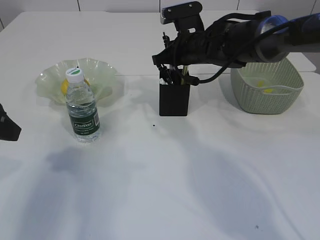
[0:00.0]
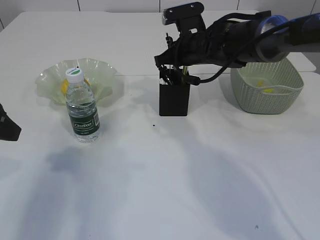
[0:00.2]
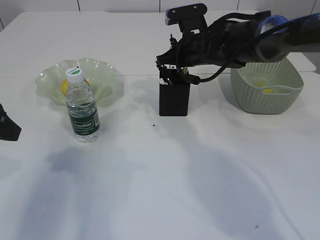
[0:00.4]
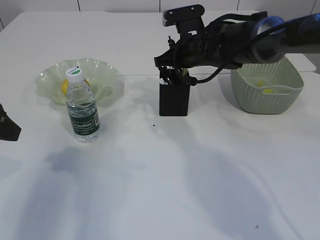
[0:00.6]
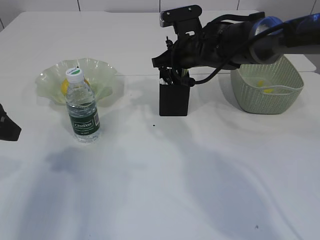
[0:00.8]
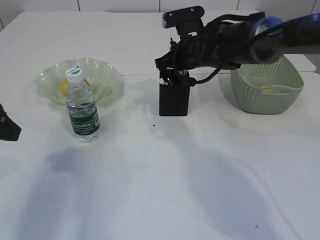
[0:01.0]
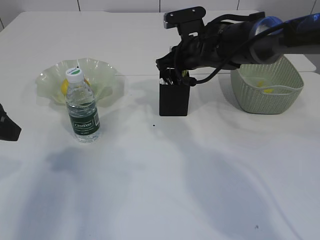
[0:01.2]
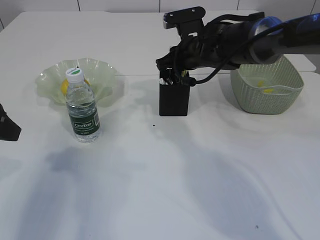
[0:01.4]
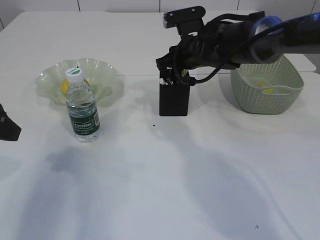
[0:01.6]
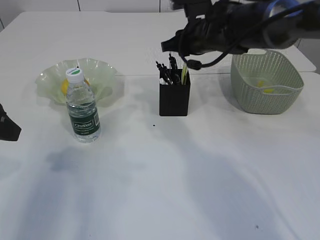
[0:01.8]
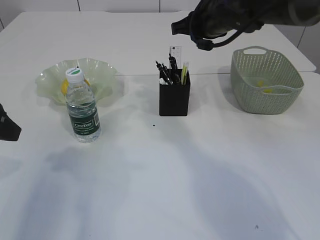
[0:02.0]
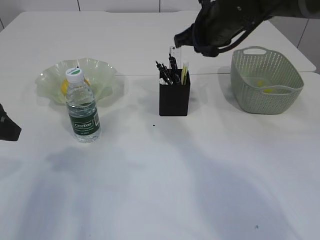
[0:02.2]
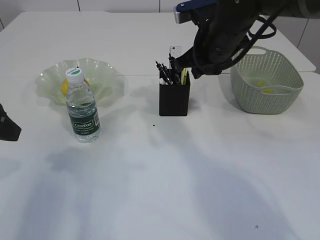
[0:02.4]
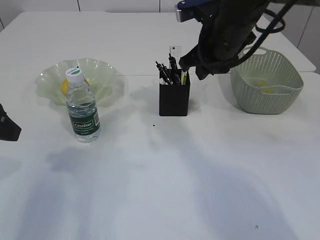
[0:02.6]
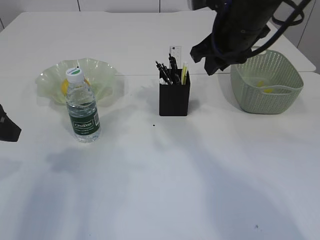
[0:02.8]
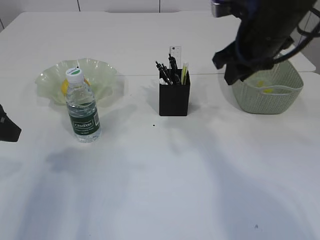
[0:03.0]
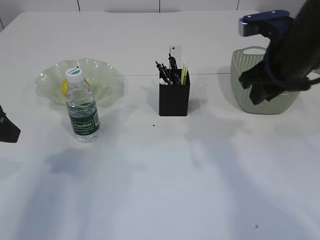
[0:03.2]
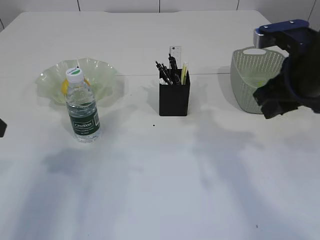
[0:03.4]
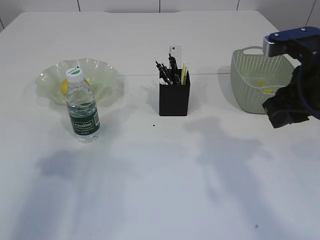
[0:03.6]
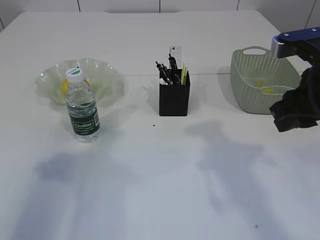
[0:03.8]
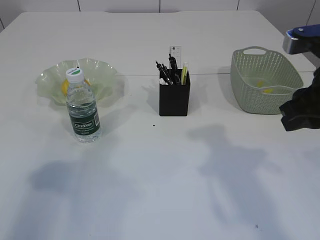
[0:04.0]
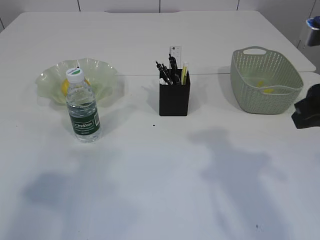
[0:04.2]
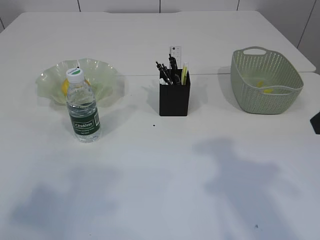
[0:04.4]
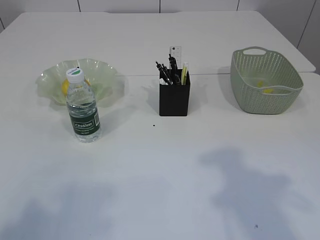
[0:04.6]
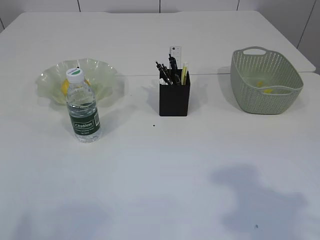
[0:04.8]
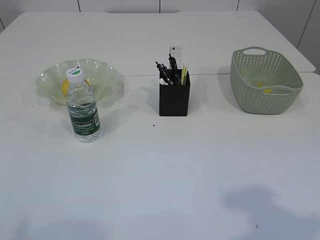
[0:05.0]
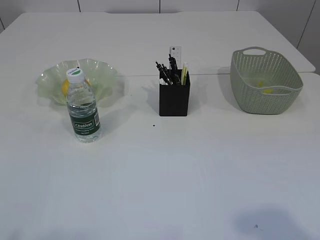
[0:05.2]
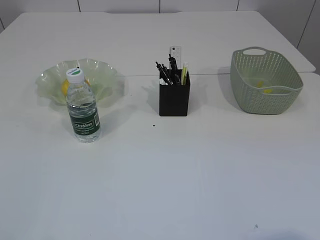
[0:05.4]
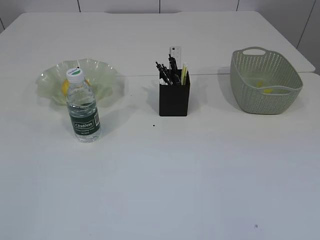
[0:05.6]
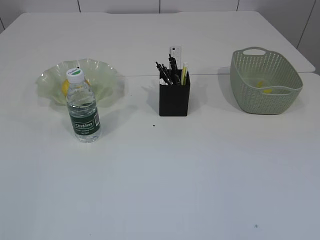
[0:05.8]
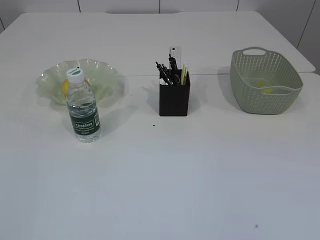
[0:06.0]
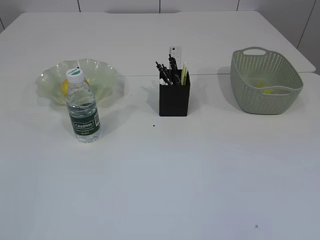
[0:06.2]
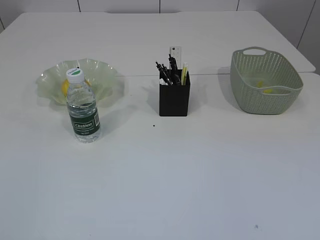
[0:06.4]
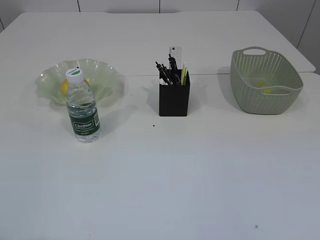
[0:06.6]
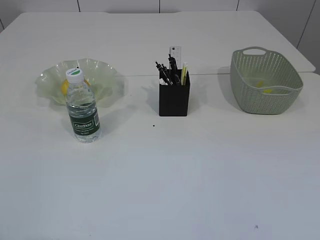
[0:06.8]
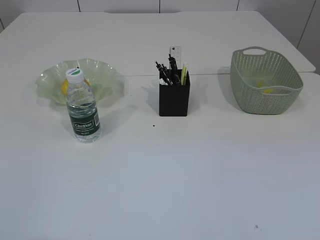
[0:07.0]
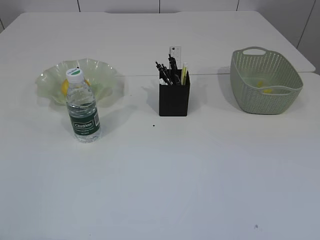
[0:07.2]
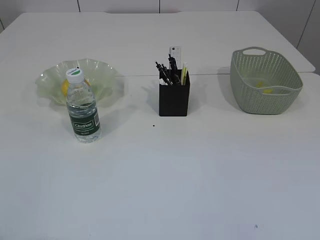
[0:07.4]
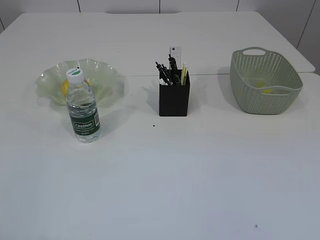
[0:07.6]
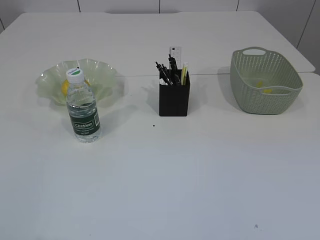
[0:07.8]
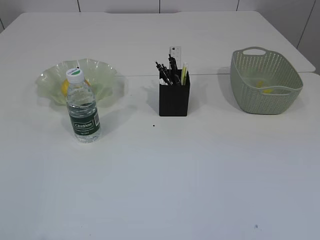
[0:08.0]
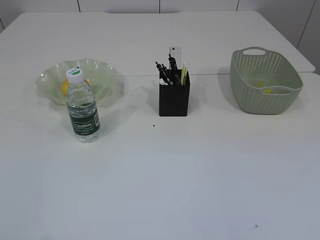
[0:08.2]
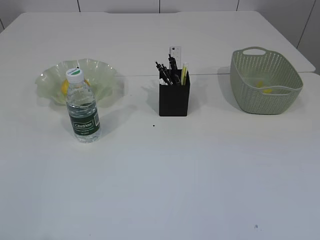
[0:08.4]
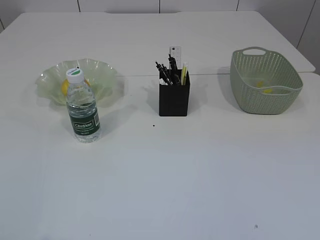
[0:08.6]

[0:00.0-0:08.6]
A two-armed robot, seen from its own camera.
0:00.0 to 0:01.4: There are only small adjustments of the grippers.
0:01.4 to 0:02.8: The right gripper moves upward and backward, some 15 cm.
0:02.8 to 0:04.4: The left gripper is displaced backward and upward by approximately 20 cm. The right gripper is displaced backward and to the right by approximately 20 cm.
0:04.4 to 0:05.8: The left gripper moves backward, some 10 cm.

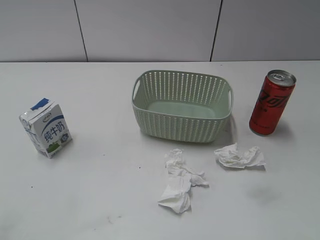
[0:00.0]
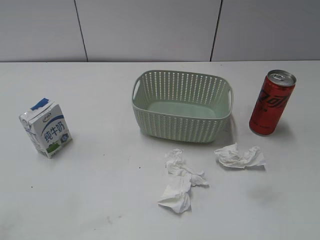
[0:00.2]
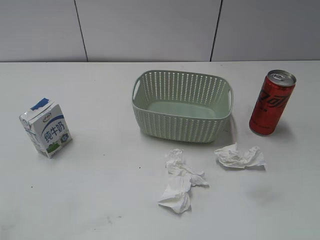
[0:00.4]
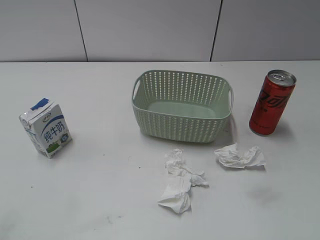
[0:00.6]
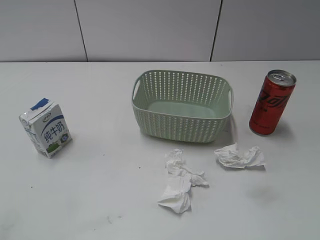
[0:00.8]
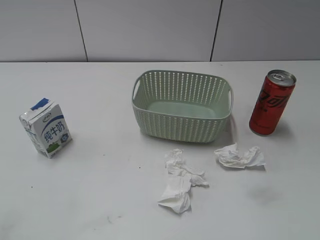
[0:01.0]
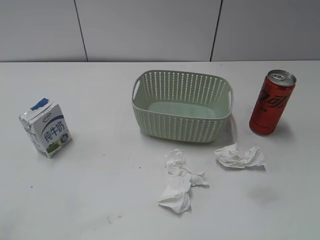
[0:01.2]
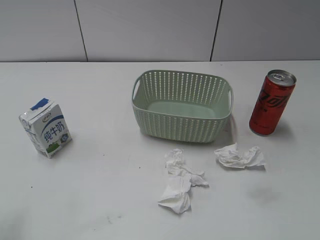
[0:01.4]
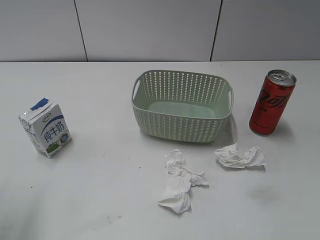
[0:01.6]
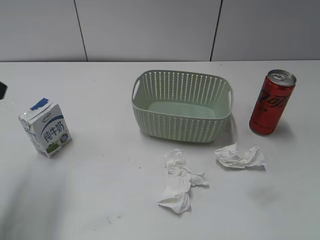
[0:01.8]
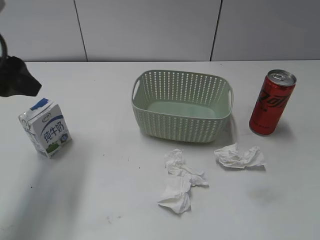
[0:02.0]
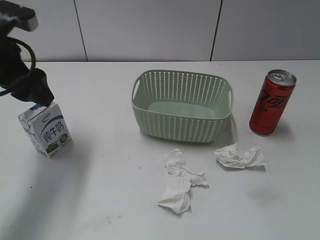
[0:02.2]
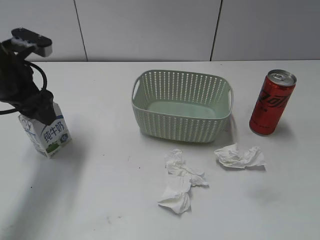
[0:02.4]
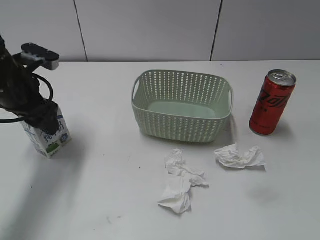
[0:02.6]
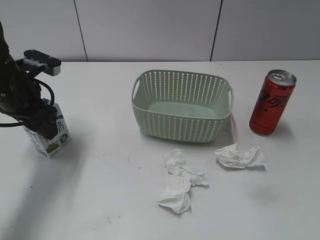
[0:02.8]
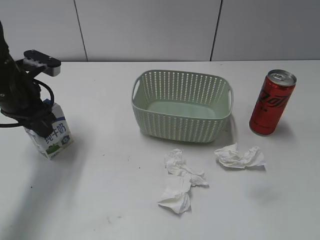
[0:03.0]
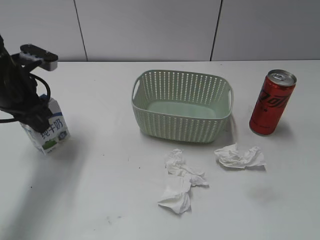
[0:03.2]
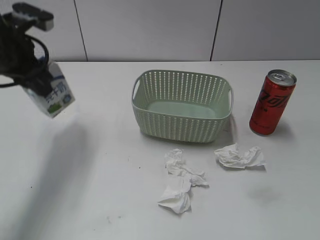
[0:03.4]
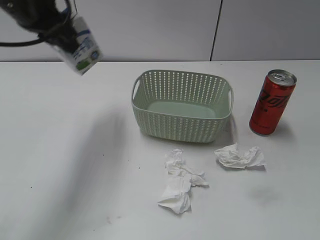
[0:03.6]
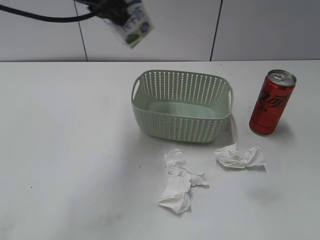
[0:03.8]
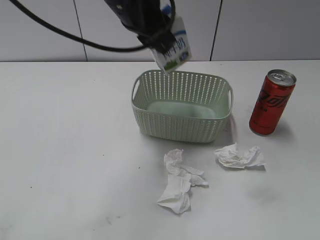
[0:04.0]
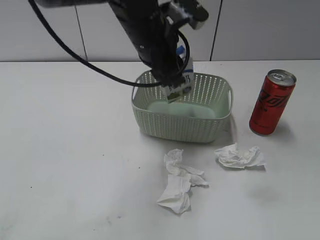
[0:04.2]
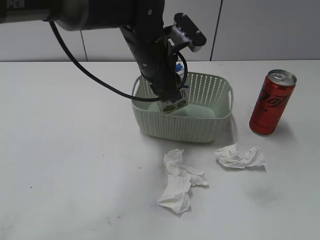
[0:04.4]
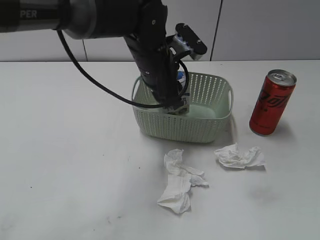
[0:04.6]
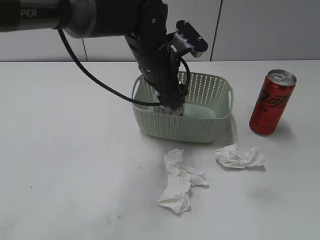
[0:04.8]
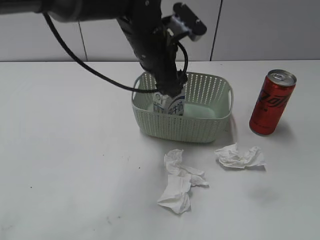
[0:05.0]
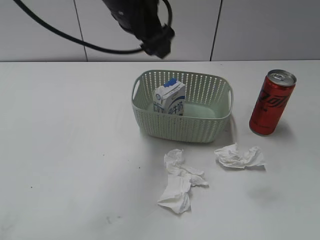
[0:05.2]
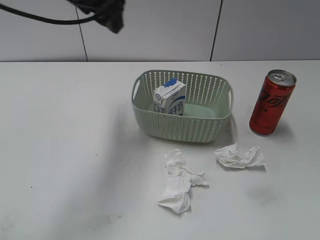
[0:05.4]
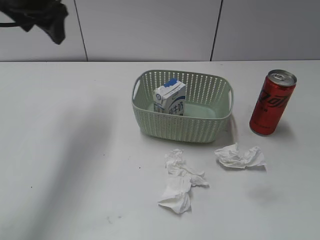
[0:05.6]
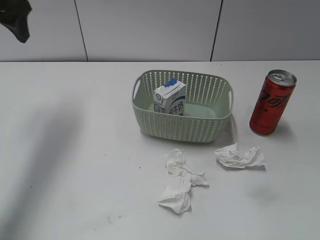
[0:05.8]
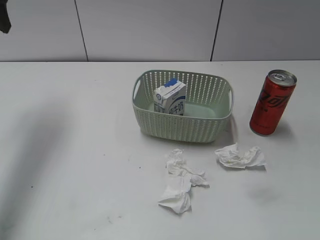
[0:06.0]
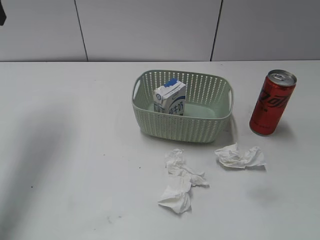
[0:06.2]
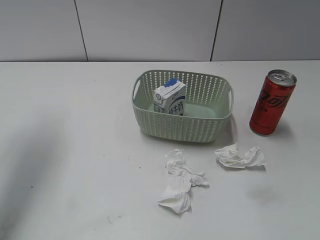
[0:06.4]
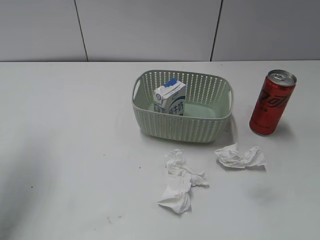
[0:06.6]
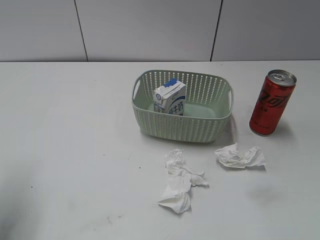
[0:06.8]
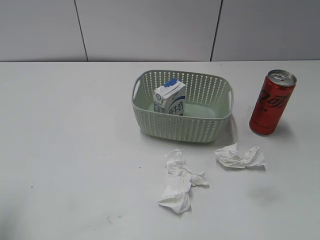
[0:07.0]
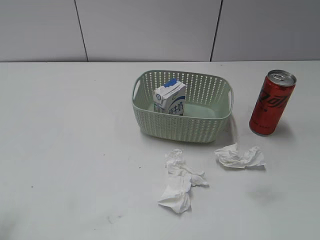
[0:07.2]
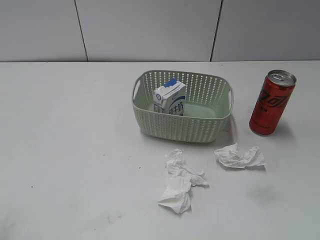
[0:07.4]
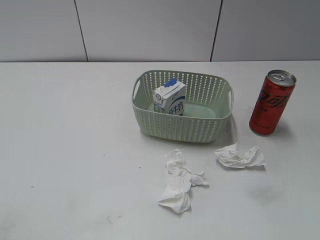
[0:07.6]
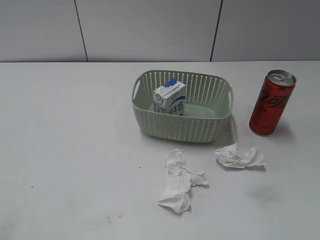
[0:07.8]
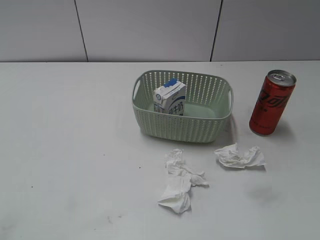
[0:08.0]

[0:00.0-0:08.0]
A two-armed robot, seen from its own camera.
Step, 0:01.8 to 0:02.8: Grasp the milk with left gripper.
Step, 0:03.0 to 0:05.0: Place the milk in the basket with left gripper.
0:01.6 to 0:03.2: The left gripper is displaced forward and downward by approximately 20 cm, and closes up.
0:03.2 to 0:04.8: The left gripper shifts approximately 25 cm to the right, and opens.
0:04.8 to 0:06.4: The left gripper heads to the left and upward, covering some 35 cm.
0:06.4 to 0:08.0: The left gripper travels backward by approximately 35 cm.

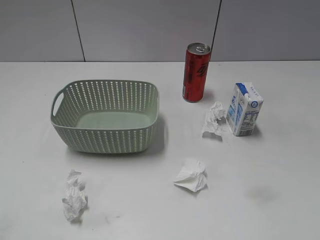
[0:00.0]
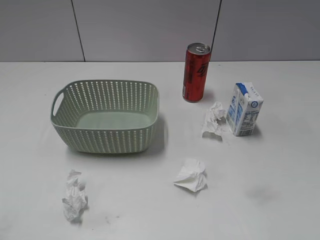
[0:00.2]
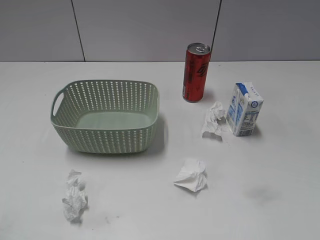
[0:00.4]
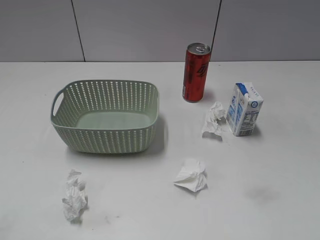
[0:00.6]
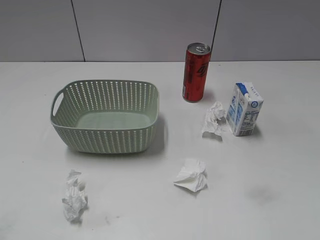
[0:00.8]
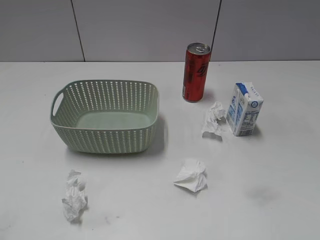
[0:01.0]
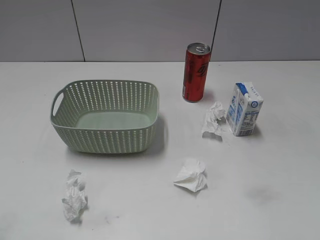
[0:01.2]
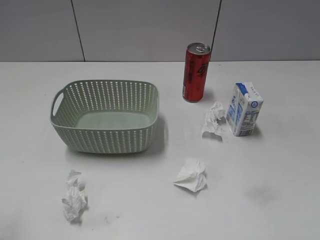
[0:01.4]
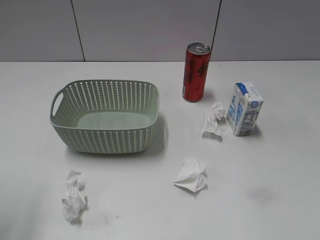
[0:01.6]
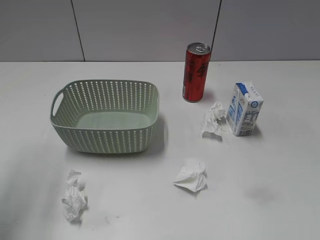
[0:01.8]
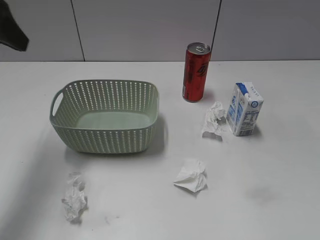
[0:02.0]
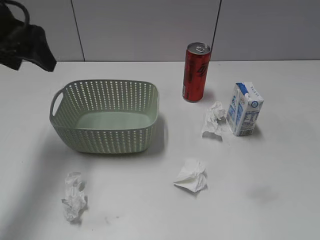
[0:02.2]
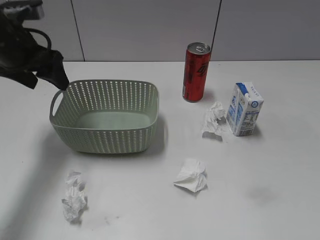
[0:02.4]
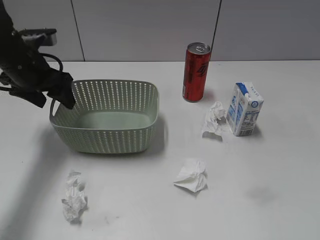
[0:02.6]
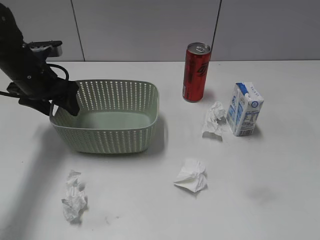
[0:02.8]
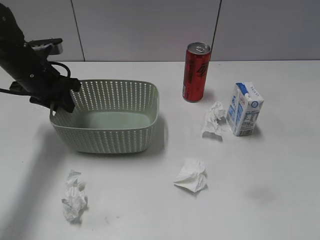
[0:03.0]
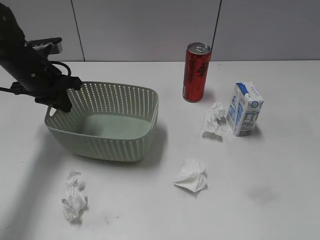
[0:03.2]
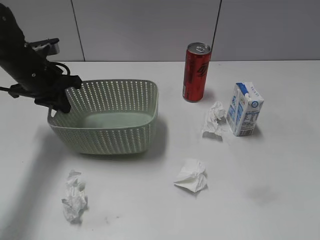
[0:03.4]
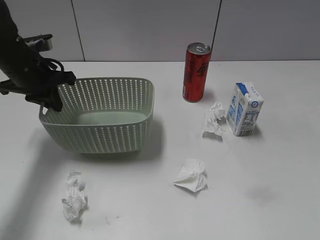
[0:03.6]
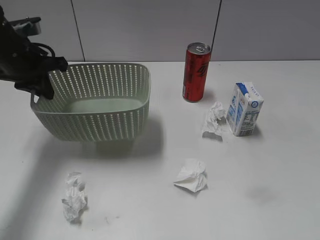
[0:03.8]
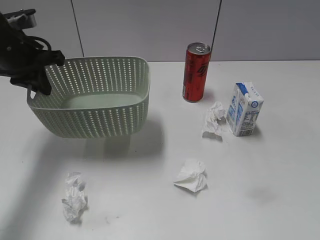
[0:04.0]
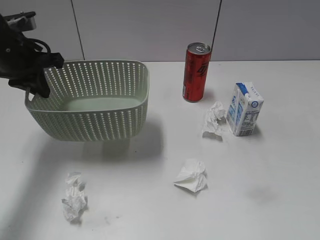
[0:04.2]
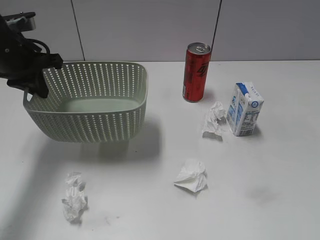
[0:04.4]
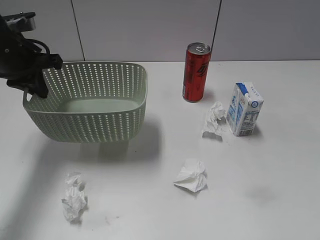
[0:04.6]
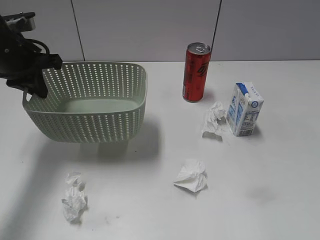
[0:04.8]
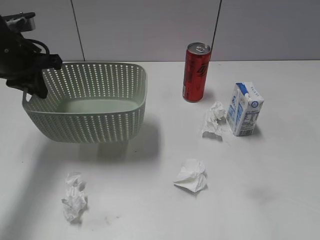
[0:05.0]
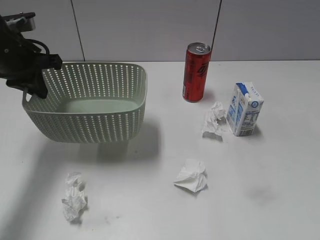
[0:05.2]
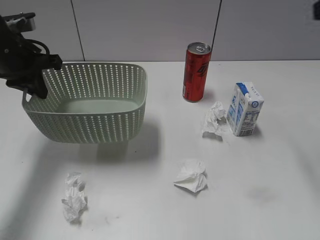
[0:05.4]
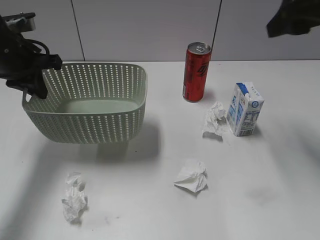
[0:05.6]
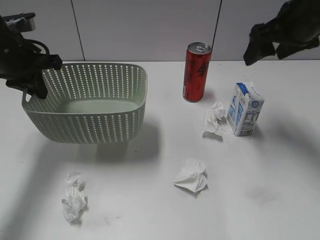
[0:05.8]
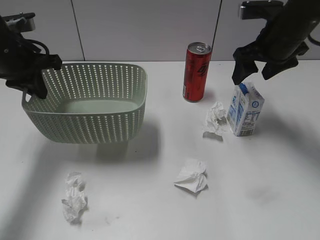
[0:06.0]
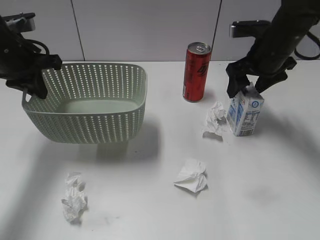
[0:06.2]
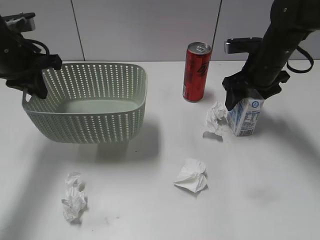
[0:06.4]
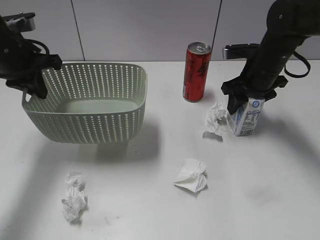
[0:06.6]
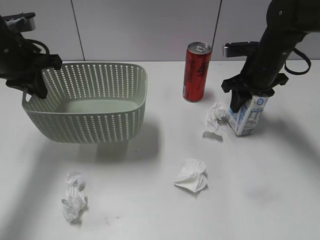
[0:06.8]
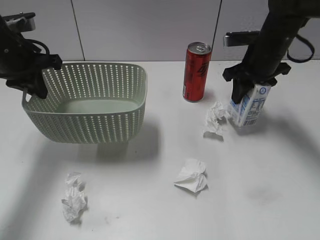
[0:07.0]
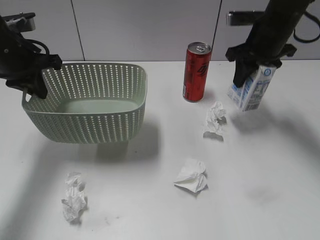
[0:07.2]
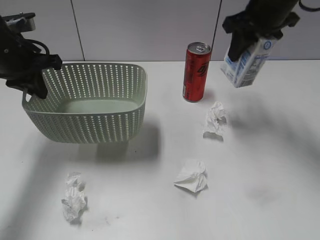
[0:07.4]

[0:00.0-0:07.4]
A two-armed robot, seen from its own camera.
Step, 0:02.0 to 0:03.2: Grasp the basket with left gripper.
Step, 0:03.4 to 0:04.2: Lift the basket with left gripper.
Step, 0:04.4 to 0:06.6: Grasp the milk with right gripper.
0:01.4 to 0:03.0: The left gripper heads forward and downward, covering approximately 35 cm, and closes its fingers.
0:03.0 to 0:04.4: The left gripper shifts some 5 cm upward.
0:04.4 to 0:06.0: The right gripper shifts about 40 cm forward.
0:06.0 to 0:07.4: The right gripper goes about 5 cm upward, and closes up.
